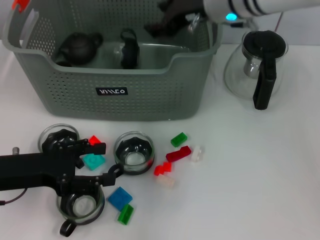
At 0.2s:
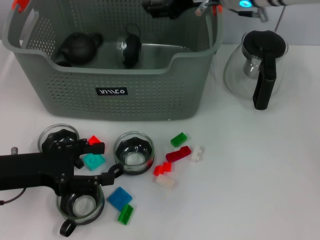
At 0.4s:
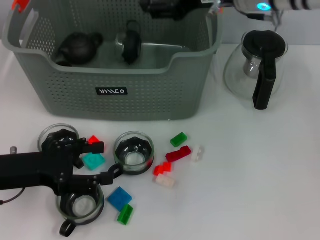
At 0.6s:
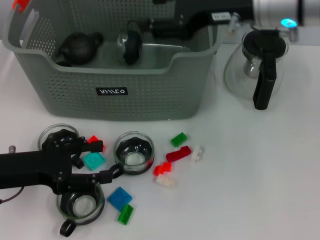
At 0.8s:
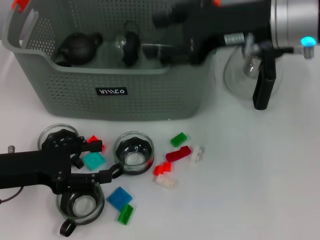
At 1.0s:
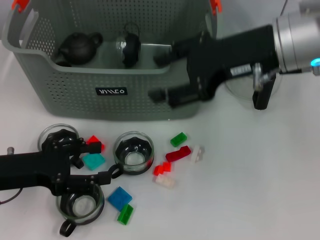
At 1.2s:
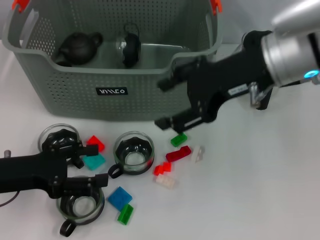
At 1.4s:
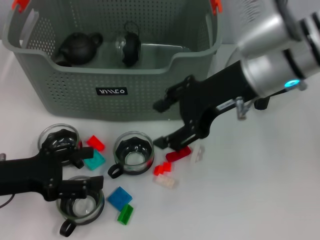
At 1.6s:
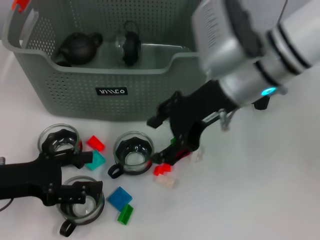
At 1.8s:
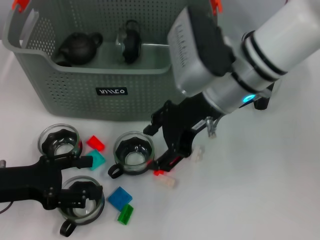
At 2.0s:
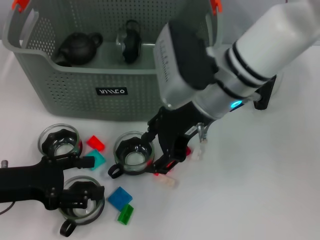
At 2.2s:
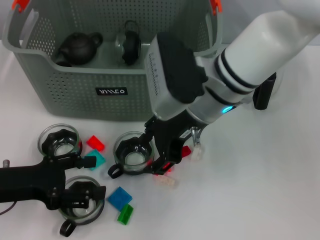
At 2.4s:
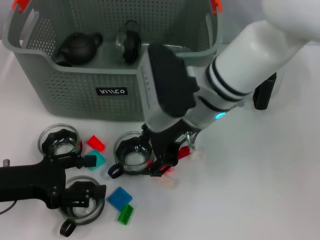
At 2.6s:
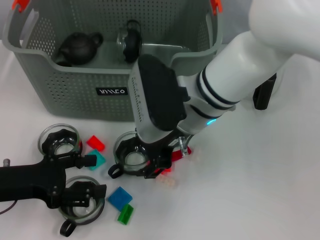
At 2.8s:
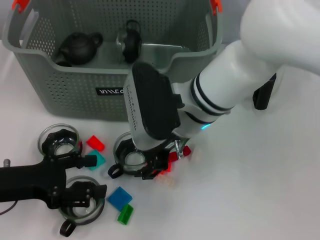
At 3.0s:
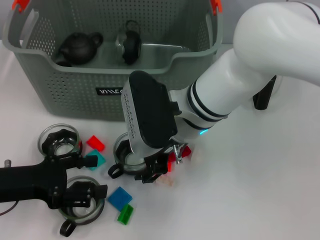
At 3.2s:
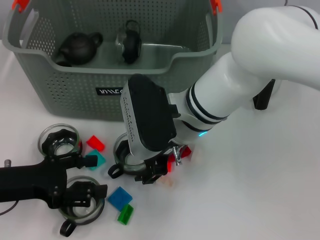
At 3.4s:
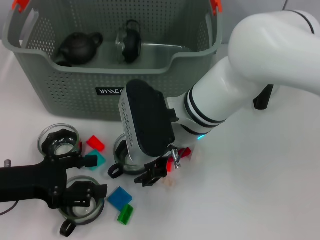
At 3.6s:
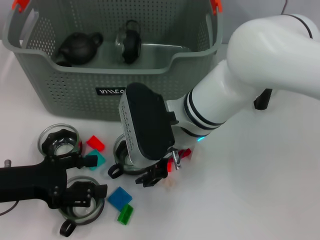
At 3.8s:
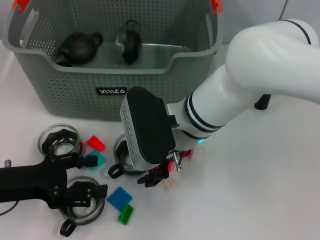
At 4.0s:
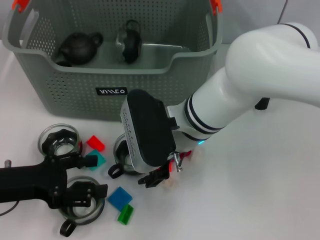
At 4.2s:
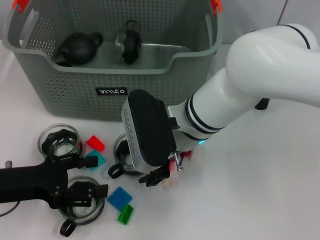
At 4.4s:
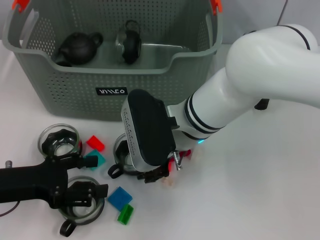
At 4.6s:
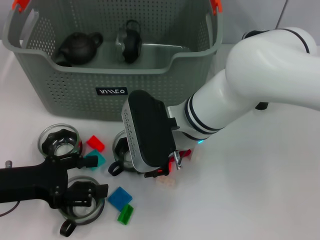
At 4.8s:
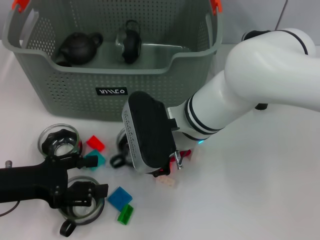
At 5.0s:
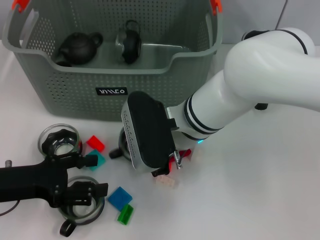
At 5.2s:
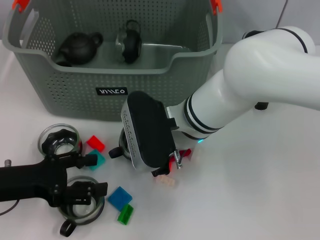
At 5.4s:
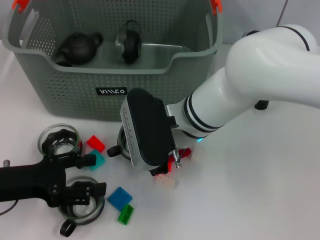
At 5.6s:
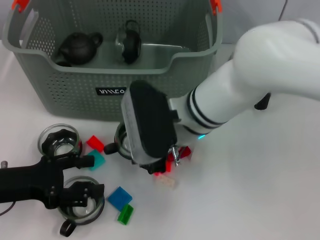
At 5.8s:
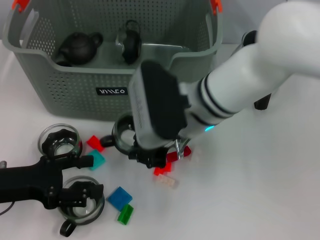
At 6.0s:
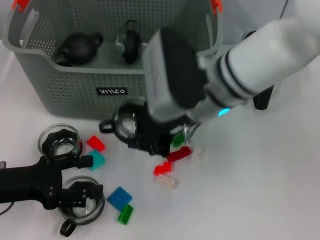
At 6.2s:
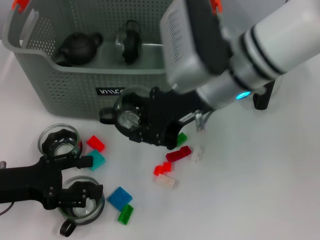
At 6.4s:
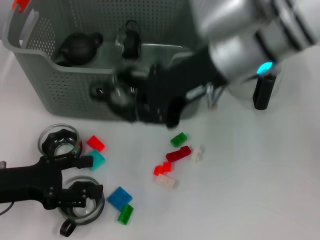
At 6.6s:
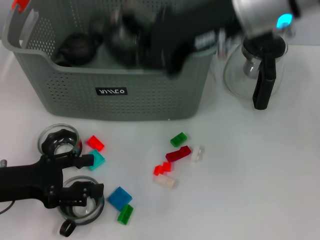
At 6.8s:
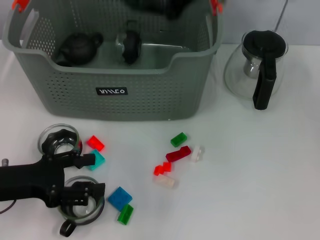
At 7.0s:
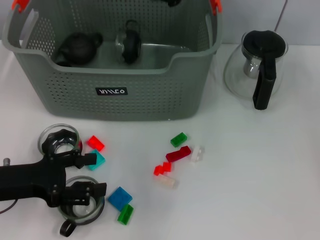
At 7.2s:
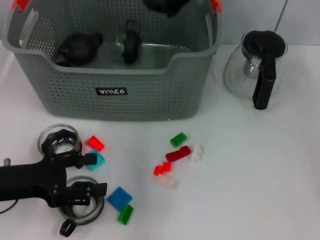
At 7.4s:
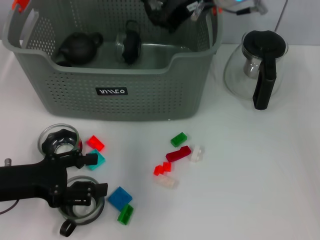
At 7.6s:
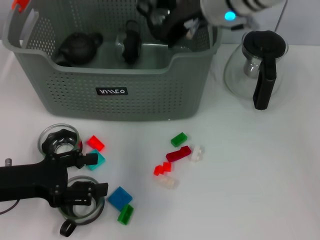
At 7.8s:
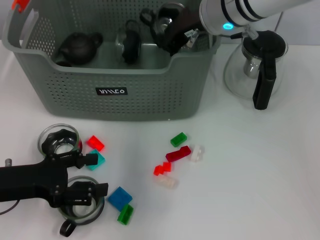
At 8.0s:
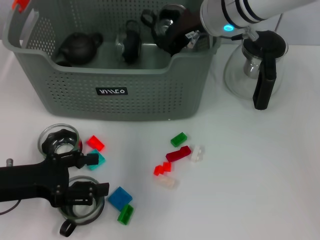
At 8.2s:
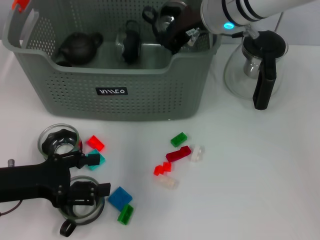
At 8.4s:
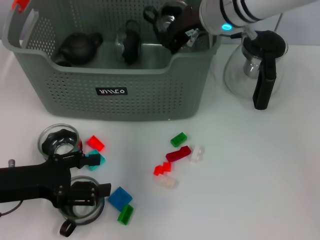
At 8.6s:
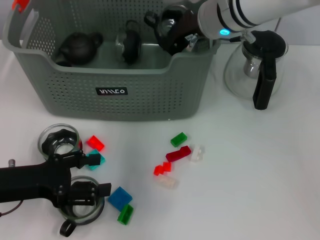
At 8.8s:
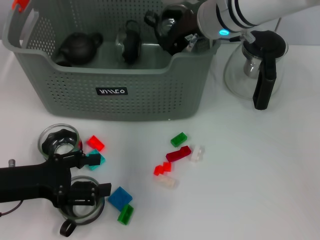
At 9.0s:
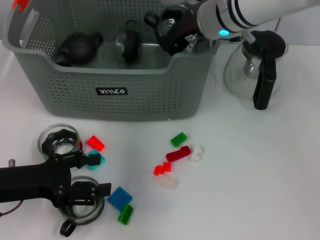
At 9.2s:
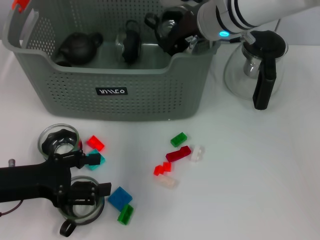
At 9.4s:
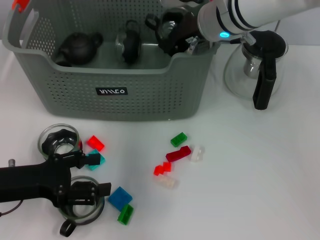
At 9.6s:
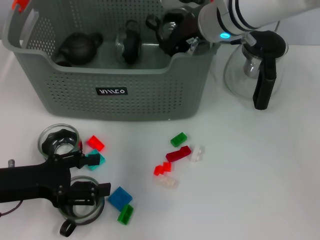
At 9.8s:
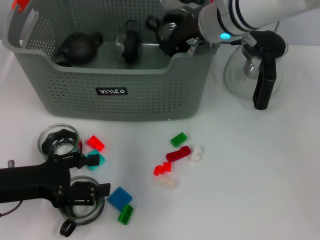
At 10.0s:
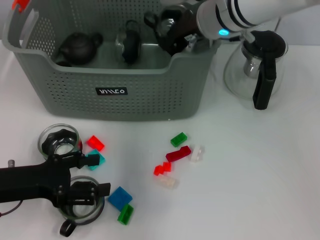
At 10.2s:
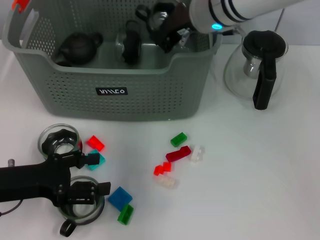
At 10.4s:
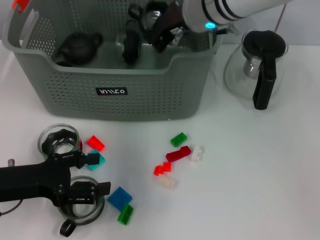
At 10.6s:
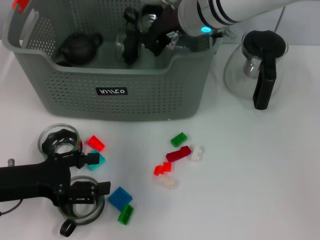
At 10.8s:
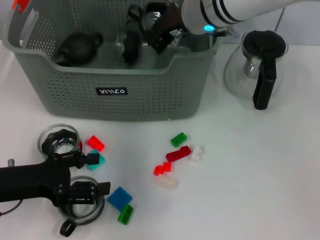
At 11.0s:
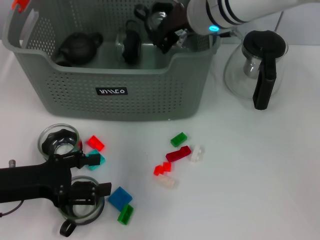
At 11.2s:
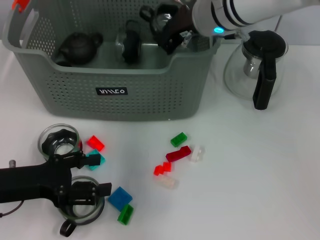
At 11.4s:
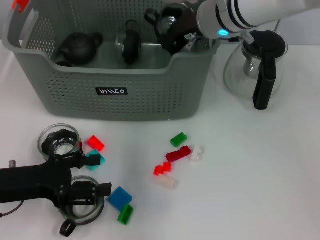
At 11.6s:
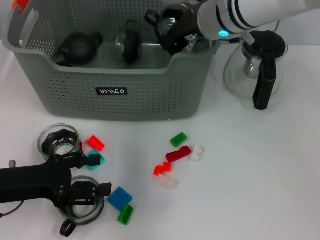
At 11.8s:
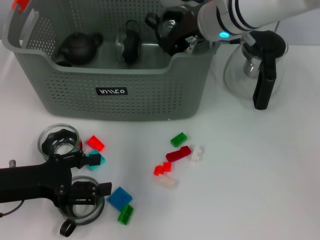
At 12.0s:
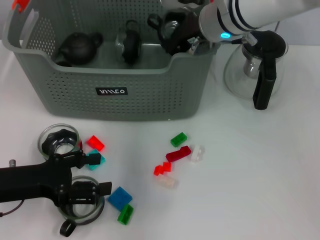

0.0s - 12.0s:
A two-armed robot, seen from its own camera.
Task of the whole recording: pick up the teacup on the table and place it into the storage bin, pick up the block on the table and place it into the storage bin.
Step, 0.0s - 4.8s: Grasp the cup with right gripper.
0.0s - 1.6s: The right gripper goes some 10 cm backward, and opens its fingers.
1.6s - 3.0s: The right gripper is displaced to the left and downward by roughly 10 cm.
3.0s - 4.4s: The grippers stay close to where they were, moving slightly.
4.4s - 6.0s: The right gripper moves upward, about 5 cm, and closes its fingers.
6.0s - 7.6s: The right gripper travels forward by roughly 10 cm, and reaches about 15 cm upward, then returns.
7.6s - 12.0s: The grippers make only small movements.

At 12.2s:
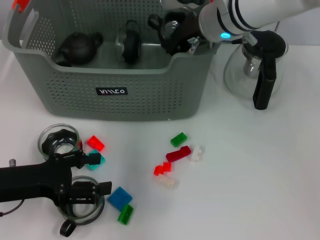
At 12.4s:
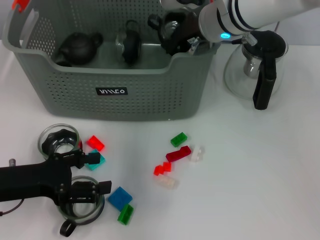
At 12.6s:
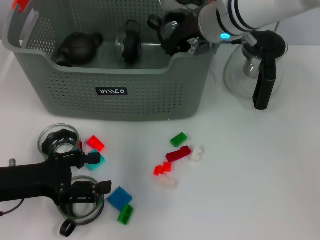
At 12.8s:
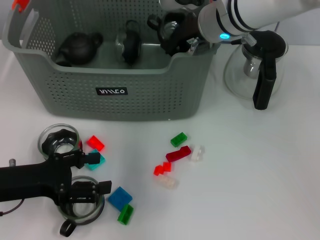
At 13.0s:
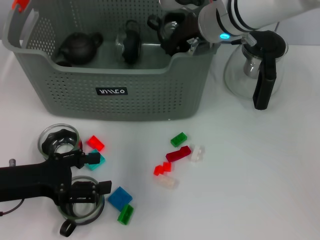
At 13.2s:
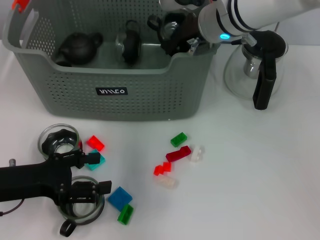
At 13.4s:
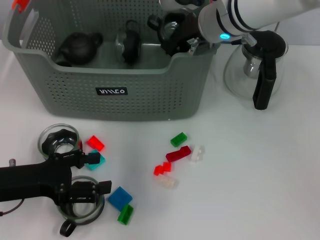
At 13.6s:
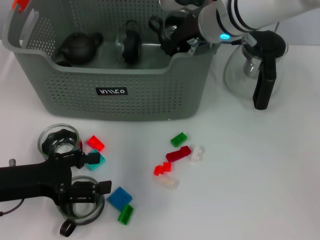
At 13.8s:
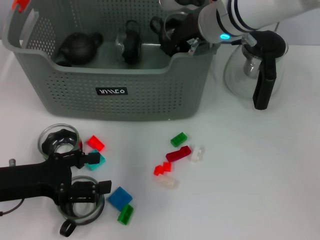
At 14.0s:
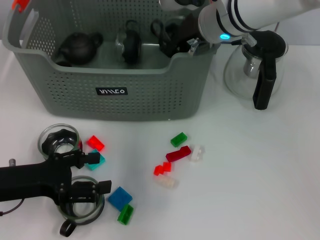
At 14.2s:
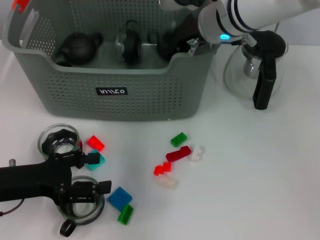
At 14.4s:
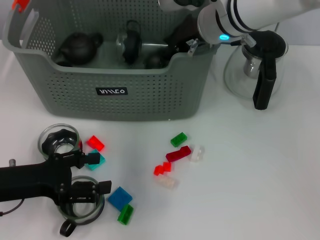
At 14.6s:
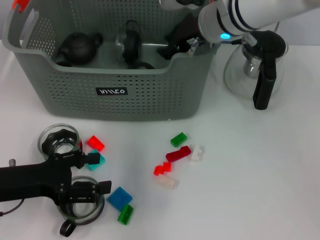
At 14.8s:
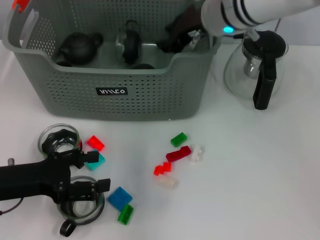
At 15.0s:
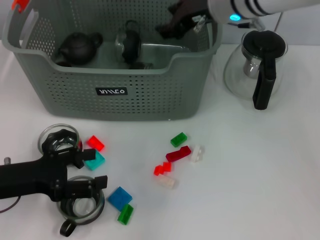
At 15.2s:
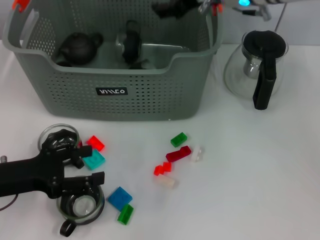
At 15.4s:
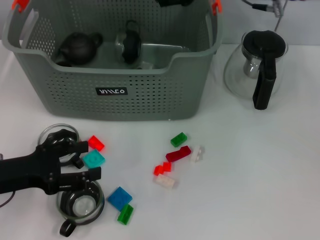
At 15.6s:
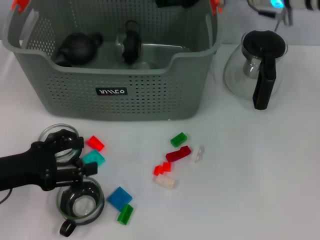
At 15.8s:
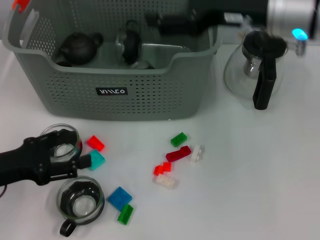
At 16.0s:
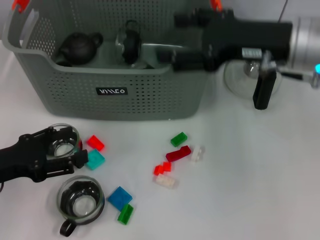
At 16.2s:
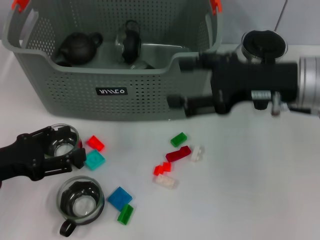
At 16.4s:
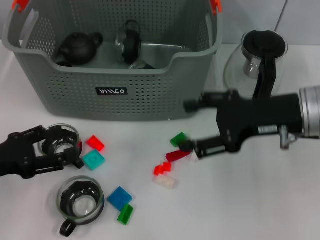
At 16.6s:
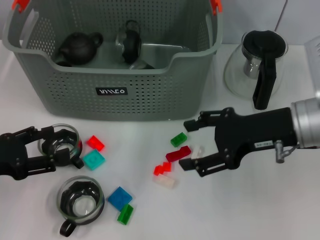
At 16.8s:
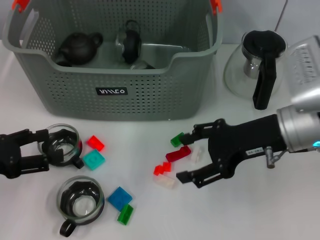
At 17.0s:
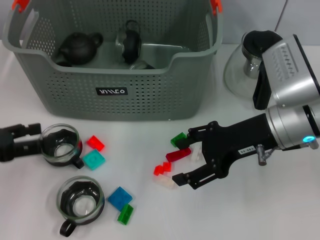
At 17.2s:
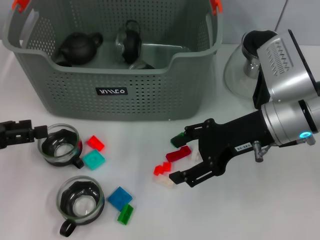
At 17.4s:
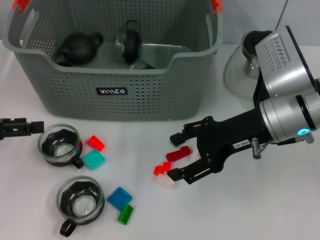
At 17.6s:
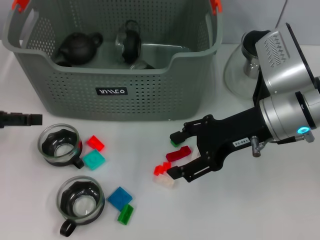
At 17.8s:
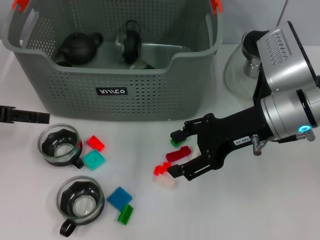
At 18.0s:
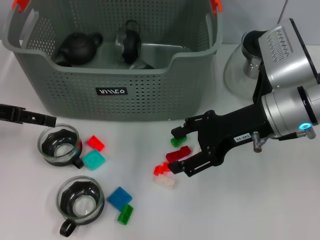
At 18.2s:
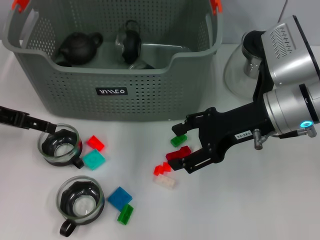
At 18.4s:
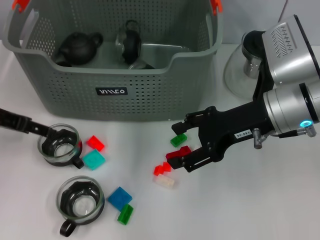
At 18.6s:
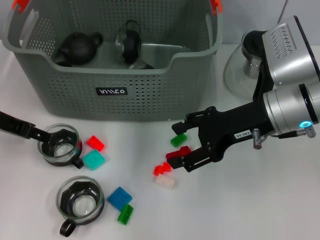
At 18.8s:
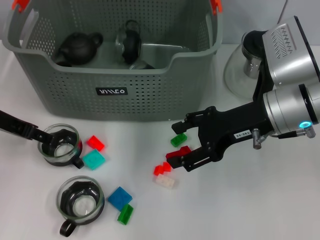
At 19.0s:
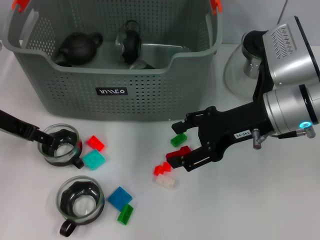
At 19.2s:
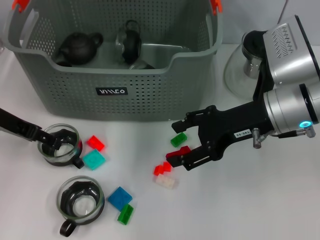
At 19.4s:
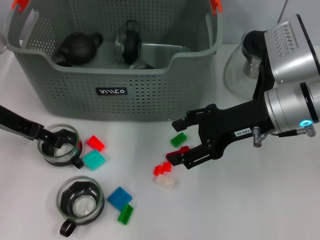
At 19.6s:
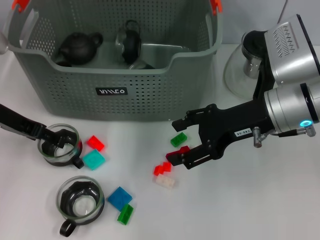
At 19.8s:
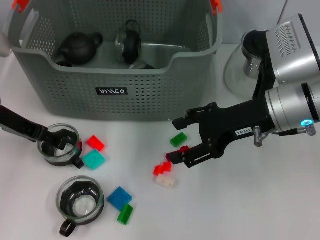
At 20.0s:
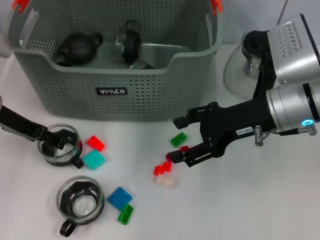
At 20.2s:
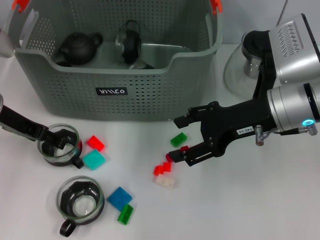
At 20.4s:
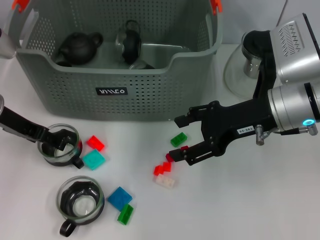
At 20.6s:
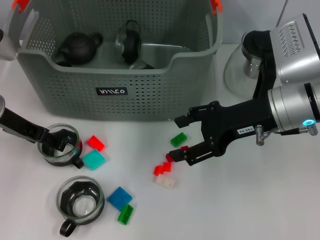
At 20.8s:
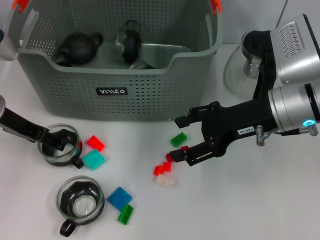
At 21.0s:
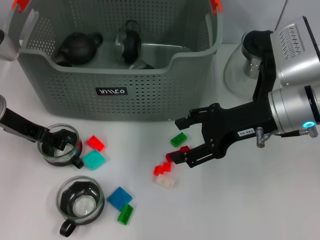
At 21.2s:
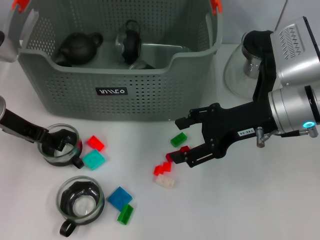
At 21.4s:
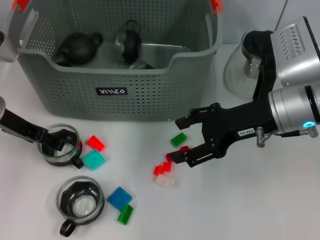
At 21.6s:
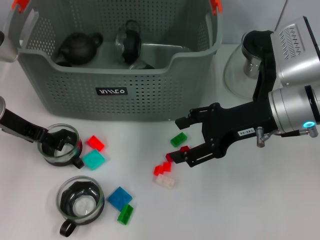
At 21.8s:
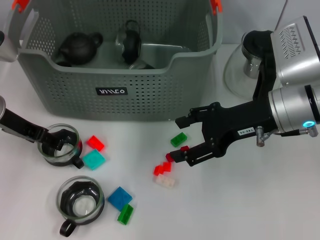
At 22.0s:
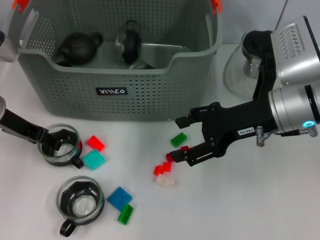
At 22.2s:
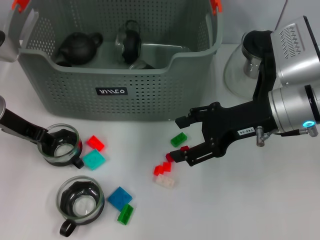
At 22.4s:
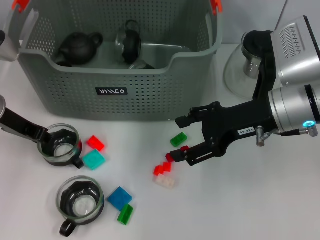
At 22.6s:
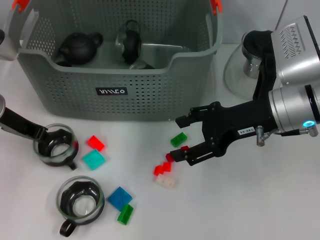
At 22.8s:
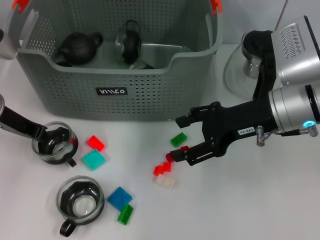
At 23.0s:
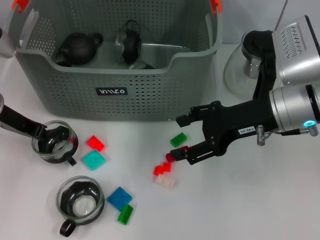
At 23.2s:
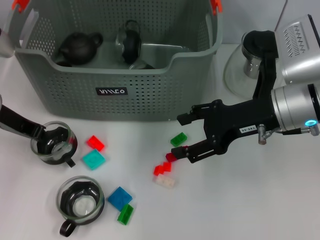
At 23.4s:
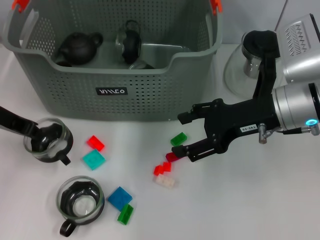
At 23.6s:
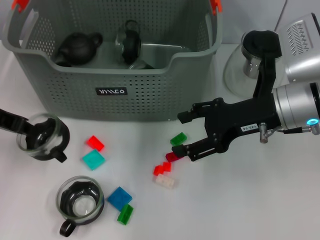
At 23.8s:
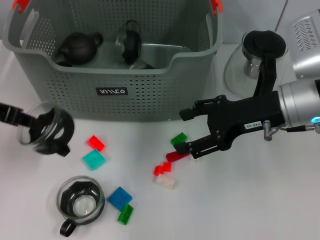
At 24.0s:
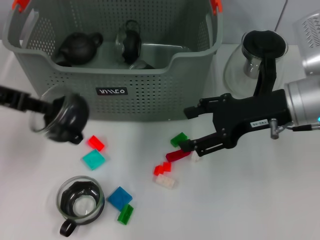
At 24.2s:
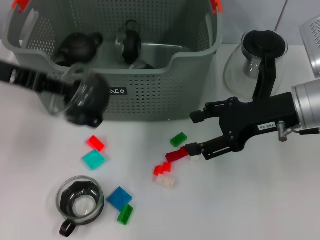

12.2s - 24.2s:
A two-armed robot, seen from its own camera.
Task of the whole recording: pick up the teacup on the table and place it into the storage bin, pick up the block on the table and place it into the storage bin.
Step, 12.2s - 14.6s: Place the cup in the storage box with right gripper.
Step, 15.0s - 22.4s: Grasp the cup with left gripper.
12.2s - 13.8s: Both grippers stay about where they are.
13.8s - 15.2s: The right gripper shifts by roughly 5 cm, and opens its fingers.
15.2s - 16.6s: The right gripper shifts about 20 cm backward, to the right and downward, and opens.
16.6s - 18.2s: The left gripper heads forward and upward, covering approximately 15 cm.
18.2s - 19.8s: The grippers stay close to where they were, moving slightly.
19.8s - 21.2s: Neither gripper changes place.
21.2s - 22.6s: The left gripper closes up.
22.6s - 24.2s: The left gripper goes some 10 cm upward.
